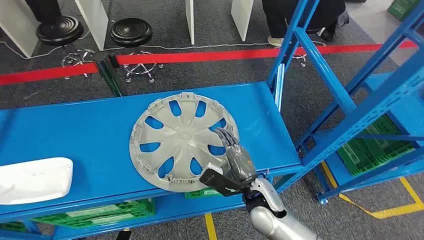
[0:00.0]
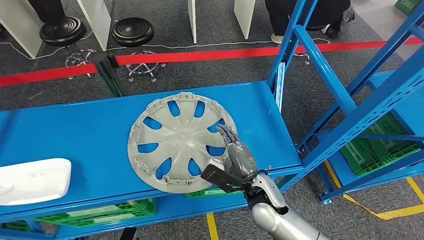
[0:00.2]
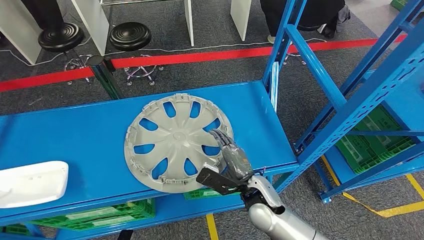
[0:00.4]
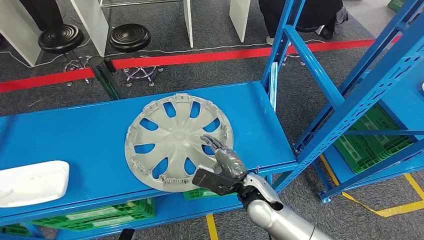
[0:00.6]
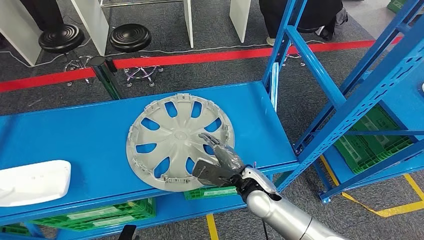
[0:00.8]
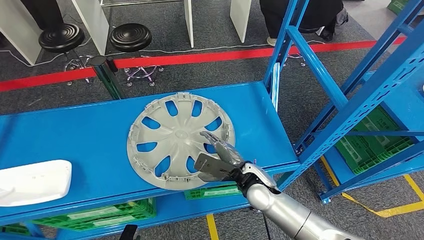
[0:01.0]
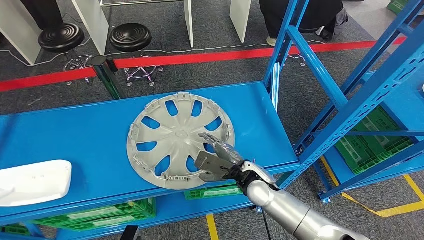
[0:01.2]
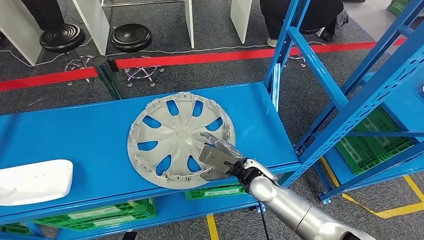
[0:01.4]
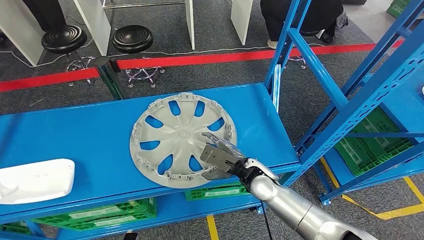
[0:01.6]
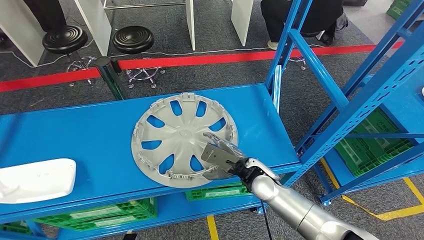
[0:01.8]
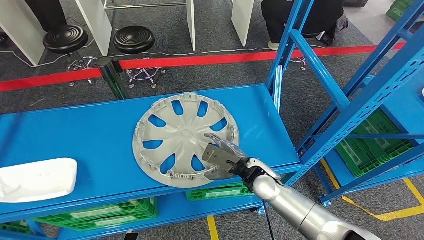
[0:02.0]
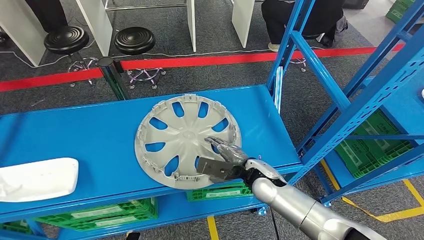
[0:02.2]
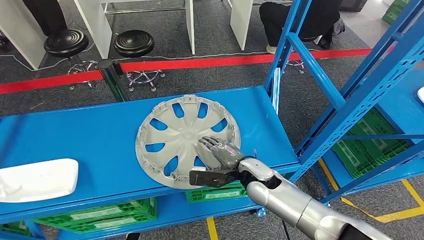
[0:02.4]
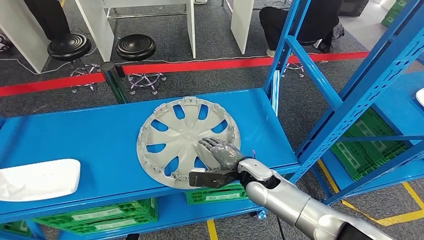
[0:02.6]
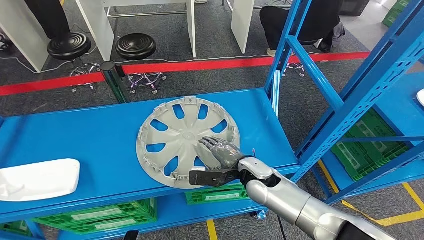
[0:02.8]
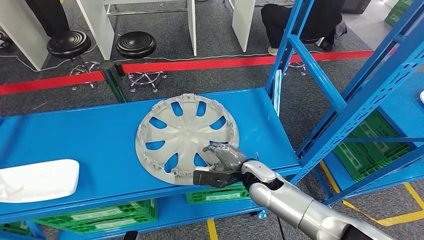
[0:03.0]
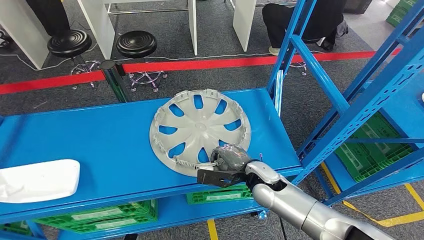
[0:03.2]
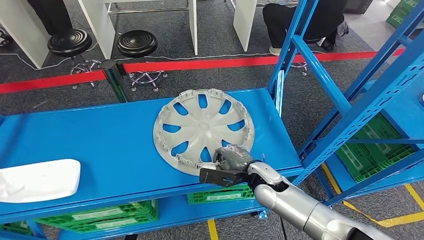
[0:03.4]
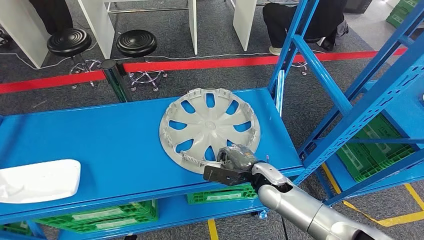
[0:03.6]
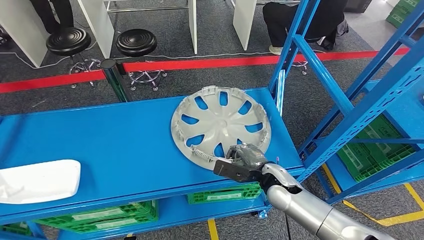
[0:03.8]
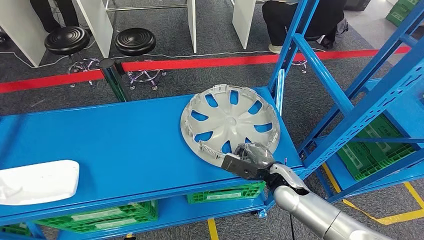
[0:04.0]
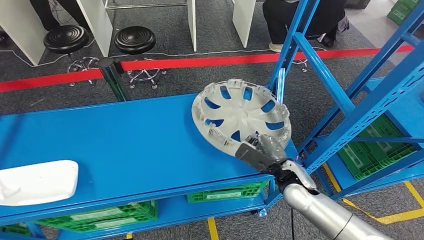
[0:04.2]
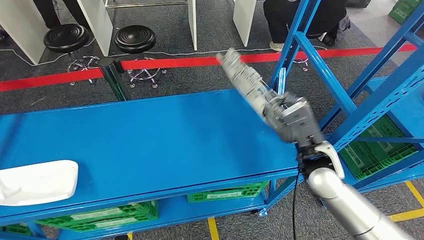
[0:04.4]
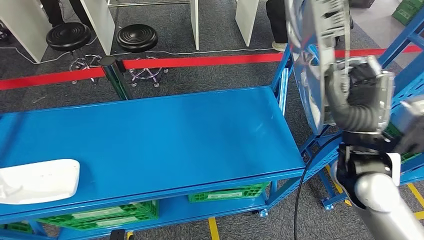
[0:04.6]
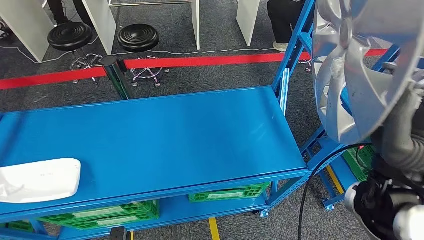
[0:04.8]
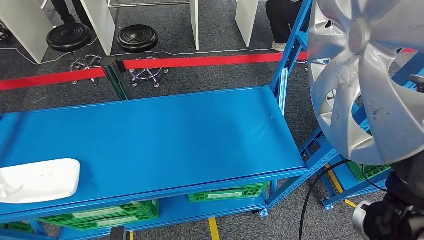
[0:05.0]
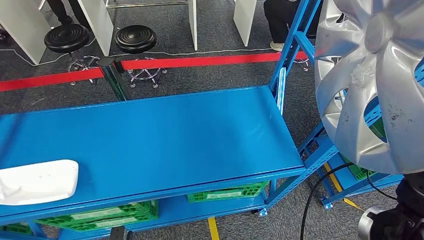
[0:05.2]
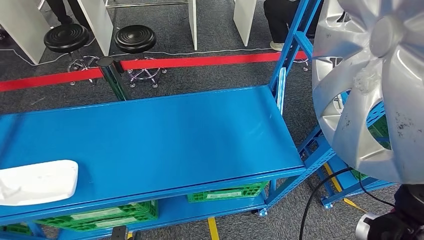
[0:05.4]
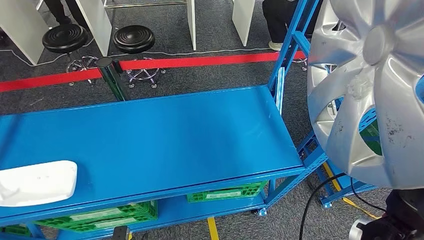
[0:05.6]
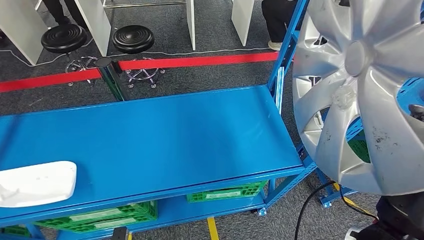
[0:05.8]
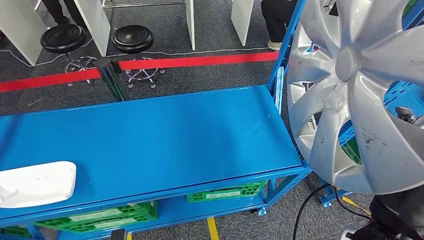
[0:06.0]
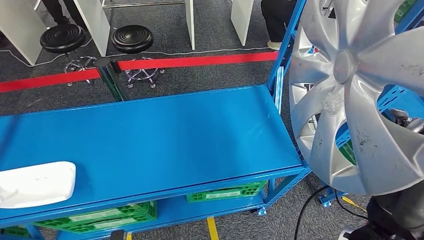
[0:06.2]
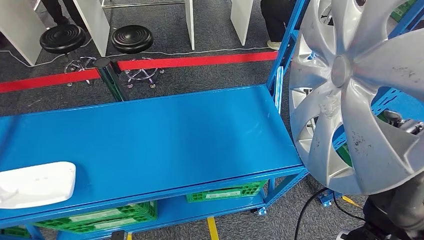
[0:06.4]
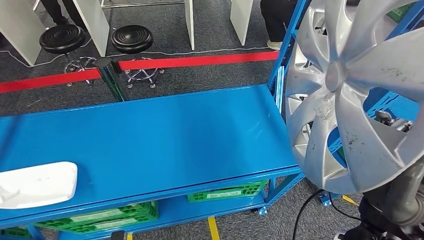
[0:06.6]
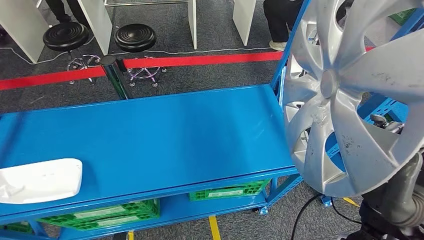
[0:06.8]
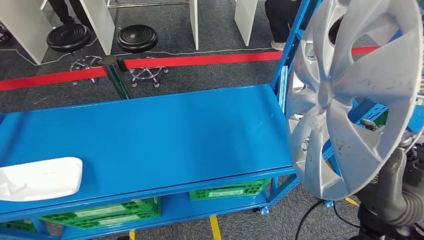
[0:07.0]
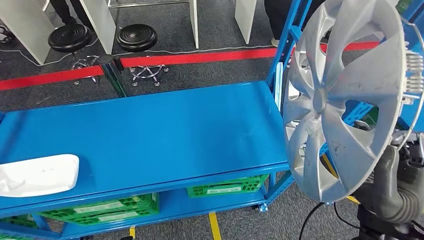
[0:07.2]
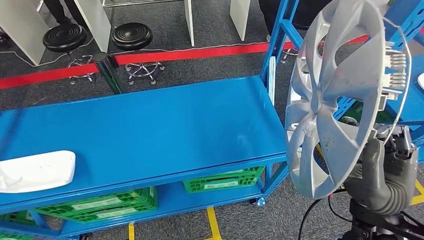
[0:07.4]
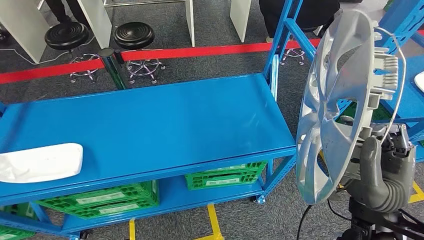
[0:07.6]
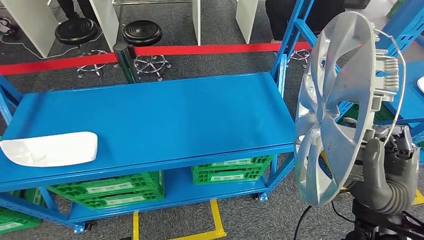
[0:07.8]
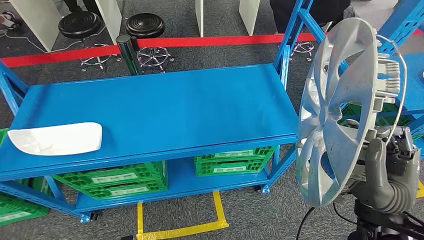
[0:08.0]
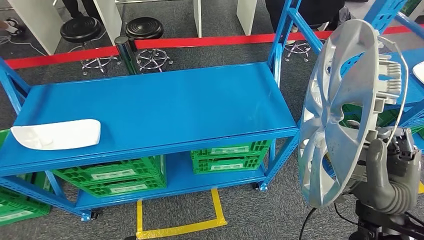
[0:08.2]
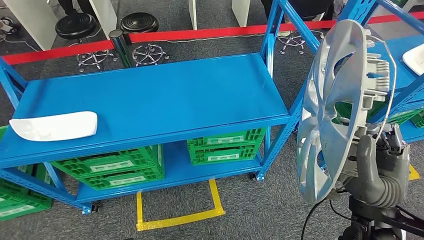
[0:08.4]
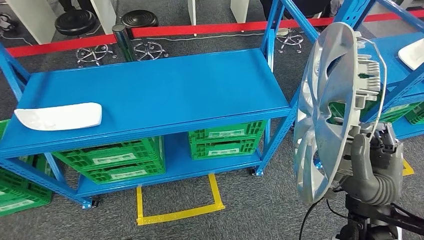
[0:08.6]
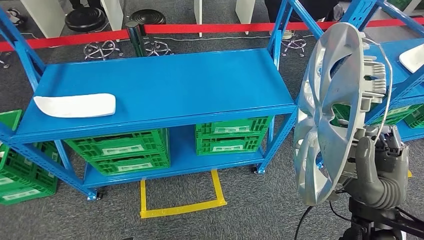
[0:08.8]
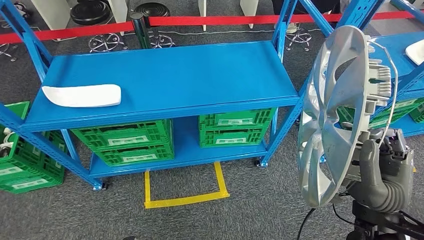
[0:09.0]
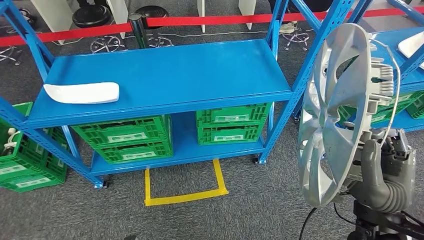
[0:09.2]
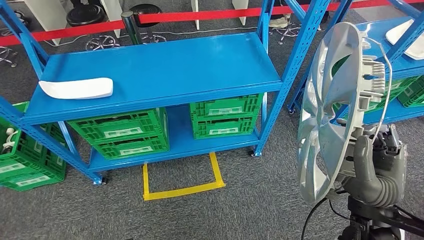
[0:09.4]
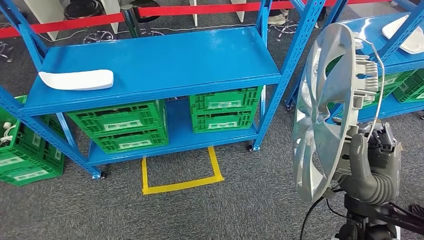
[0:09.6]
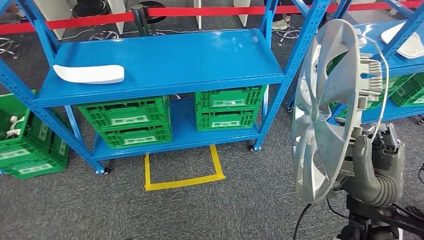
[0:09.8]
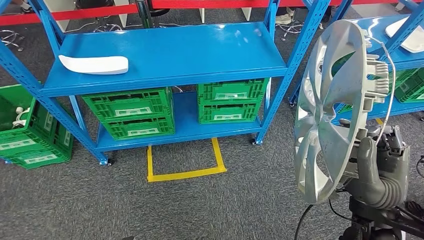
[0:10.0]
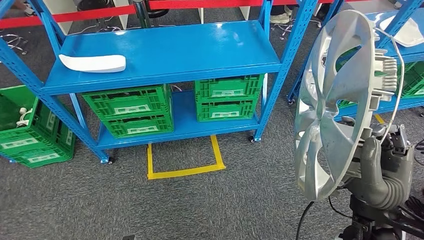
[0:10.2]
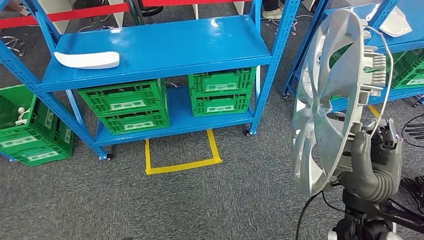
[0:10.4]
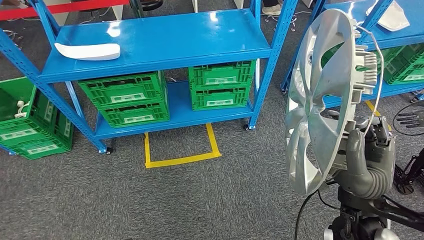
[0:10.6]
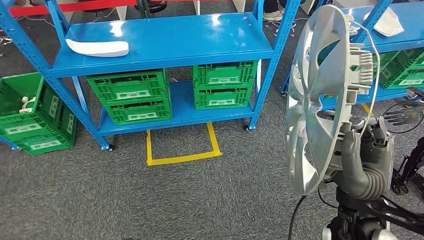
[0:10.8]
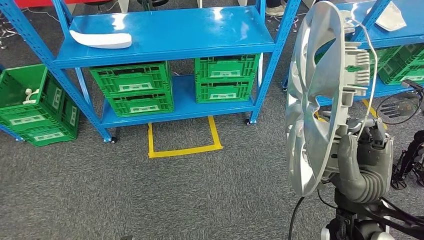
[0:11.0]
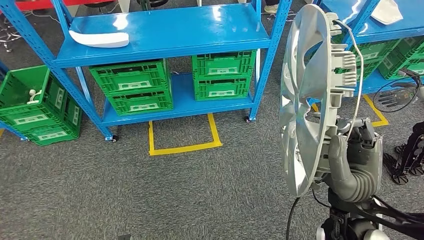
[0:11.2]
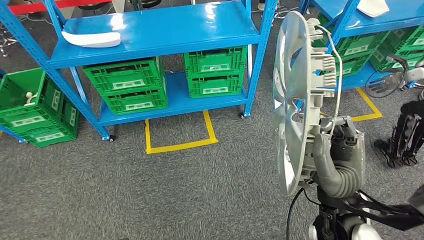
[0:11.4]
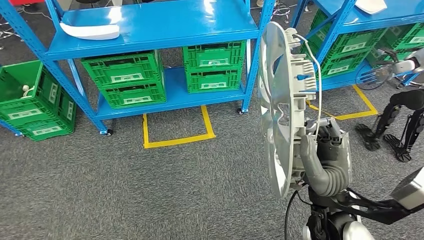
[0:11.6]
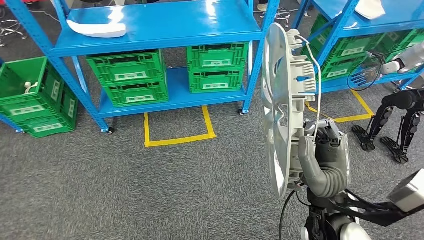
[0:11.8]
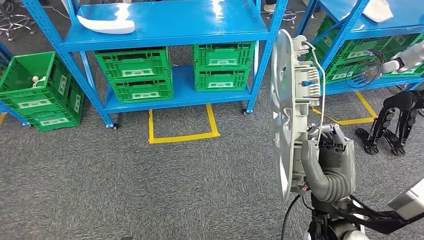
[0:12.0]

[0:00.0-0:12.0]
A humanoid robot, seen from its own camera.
Step, 0:00.0 to 0:05.6: Pick up the small component from the shelf.

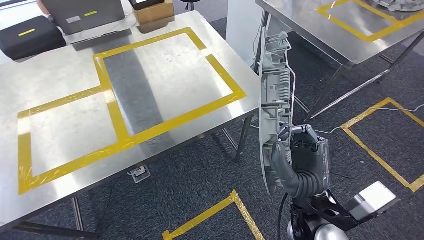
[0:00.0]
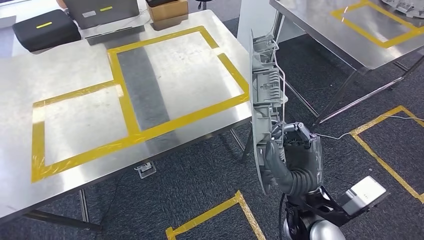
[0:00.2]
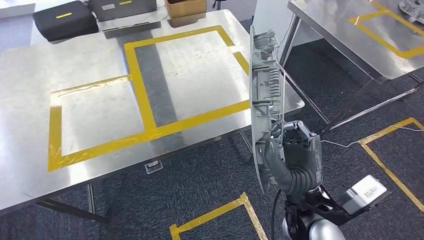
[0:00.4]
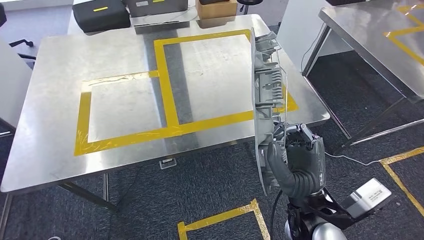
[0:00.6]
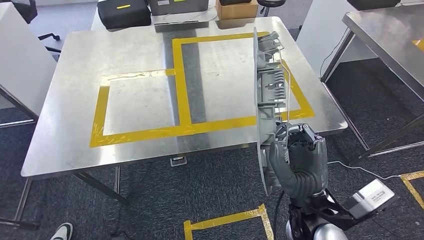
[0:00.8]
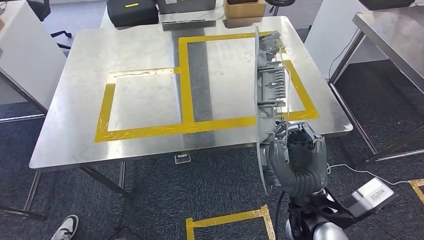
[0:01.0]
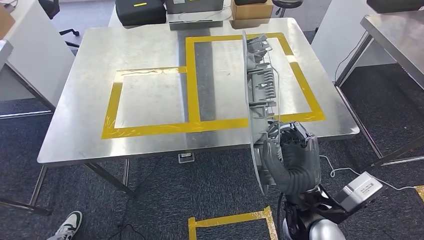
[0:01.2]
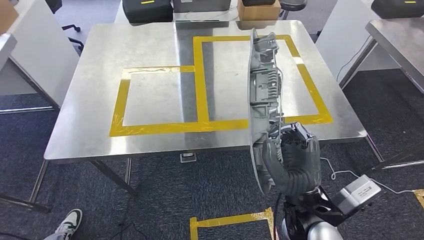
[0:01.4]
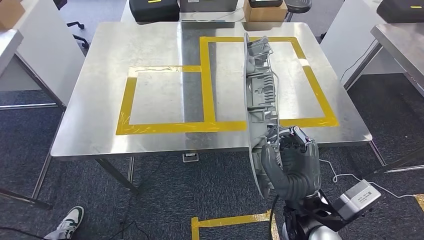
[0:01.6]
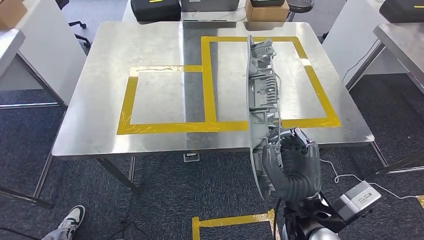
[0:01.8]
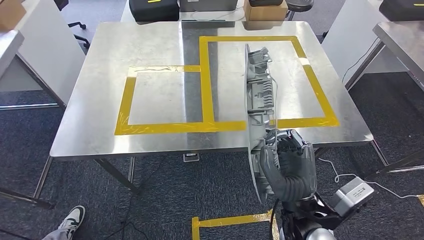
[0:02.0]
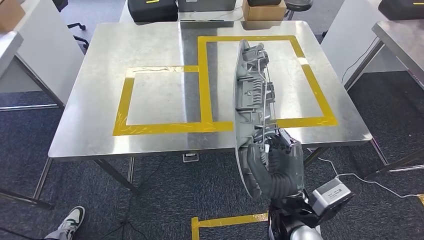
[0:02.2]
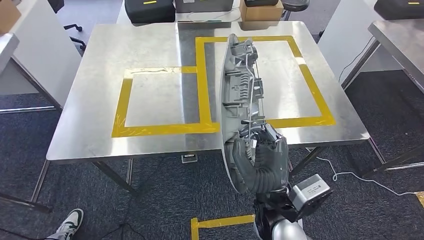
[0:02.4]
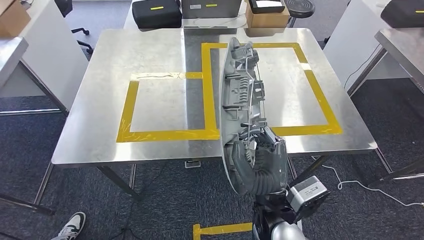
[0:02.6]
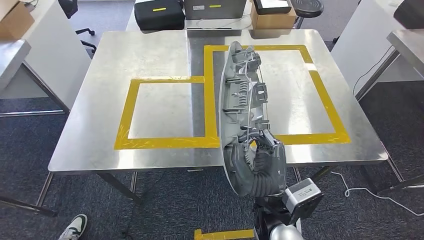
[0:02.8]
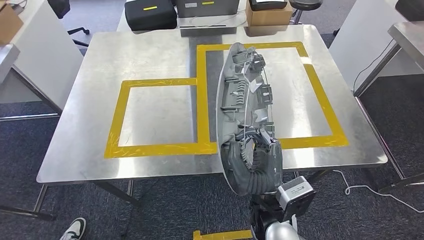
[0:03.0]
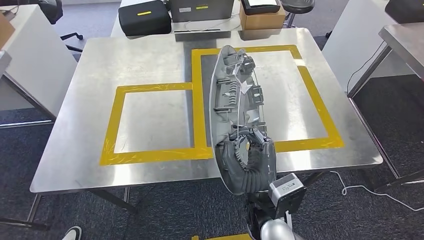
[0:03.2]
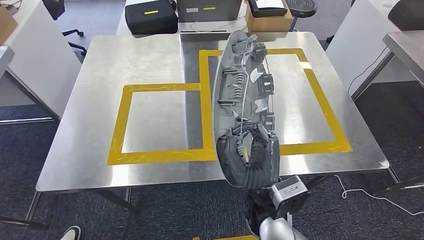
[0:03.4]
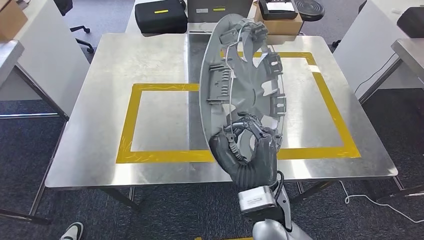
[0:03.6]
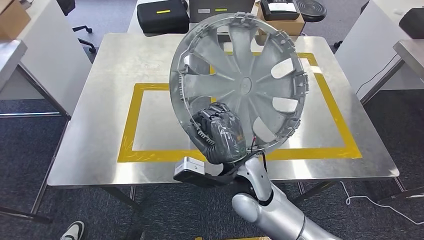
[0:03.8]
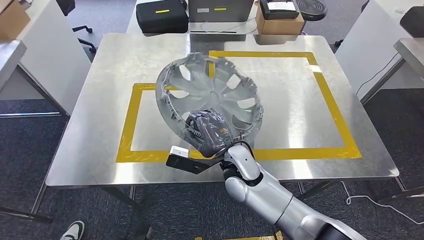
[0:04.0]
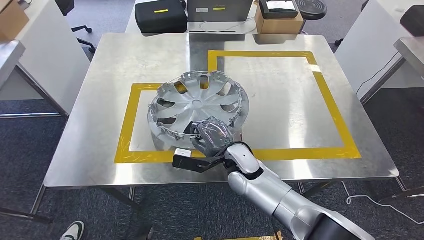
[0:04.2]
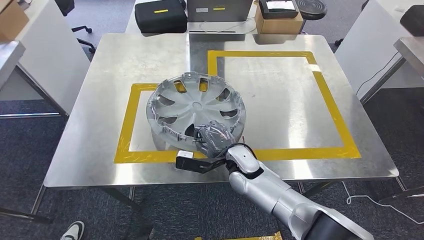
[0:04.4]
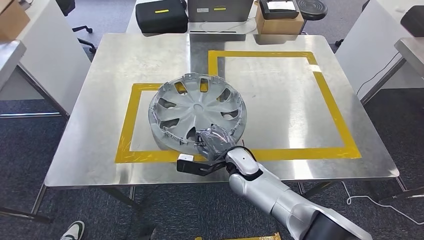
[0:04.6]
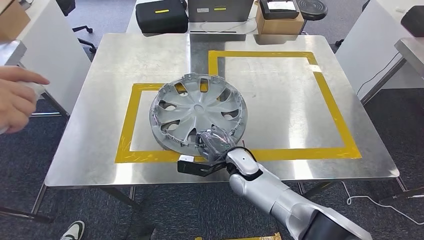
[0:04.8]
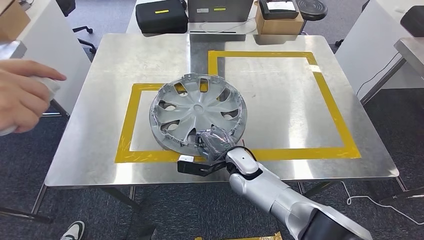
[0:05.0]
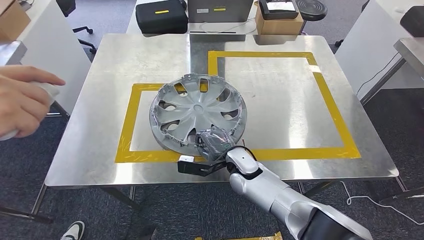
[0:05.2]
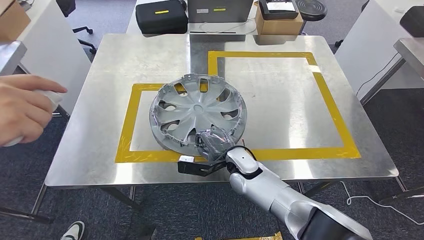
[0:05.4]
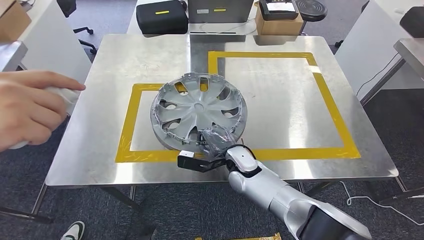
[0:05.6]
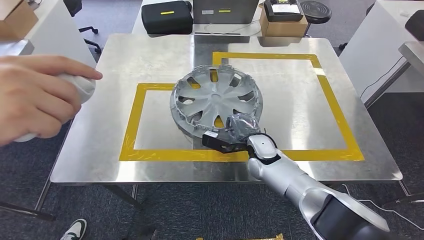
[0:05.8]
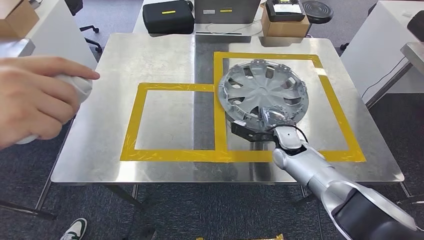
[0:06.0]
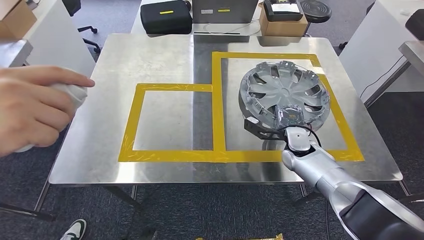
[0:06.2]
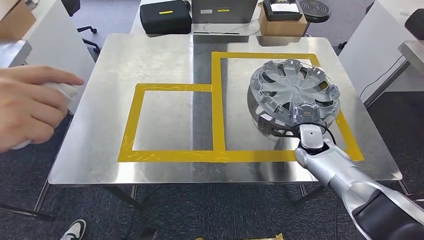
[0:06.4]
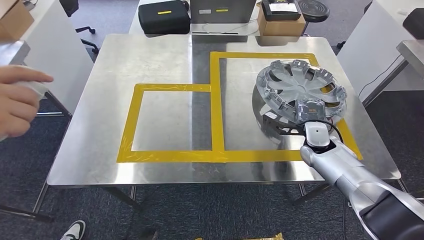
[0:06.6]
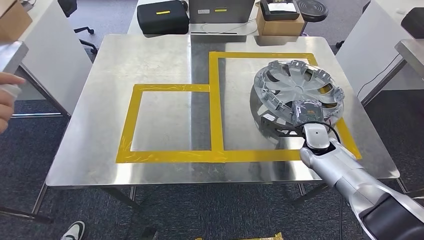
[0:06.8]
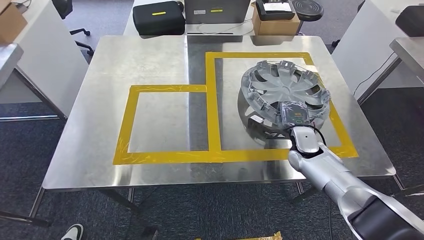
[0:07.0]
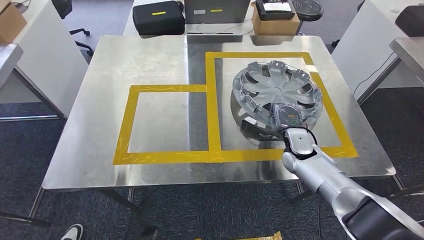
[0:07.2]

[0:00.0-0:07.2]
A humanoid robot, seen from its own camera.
Step, 0:00.0 to 0:02.6: Bring the small component to the front of the workbench.
